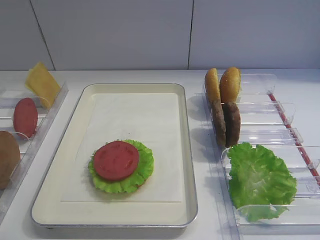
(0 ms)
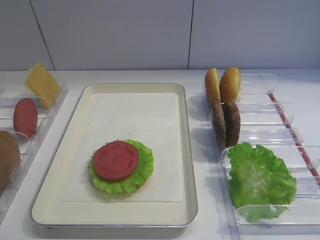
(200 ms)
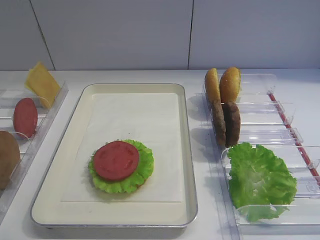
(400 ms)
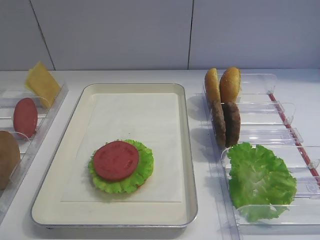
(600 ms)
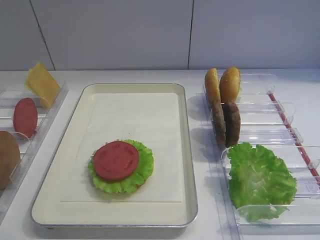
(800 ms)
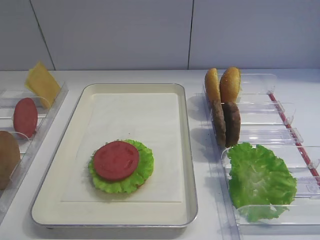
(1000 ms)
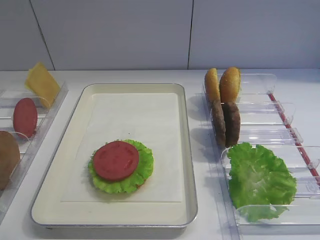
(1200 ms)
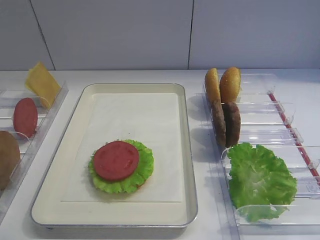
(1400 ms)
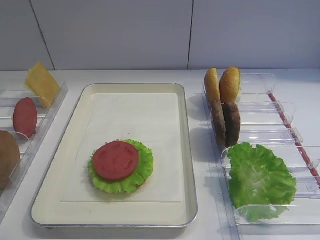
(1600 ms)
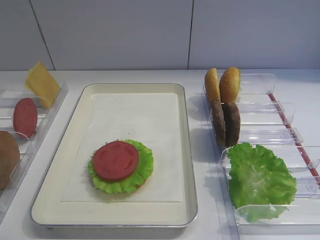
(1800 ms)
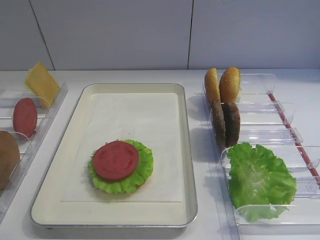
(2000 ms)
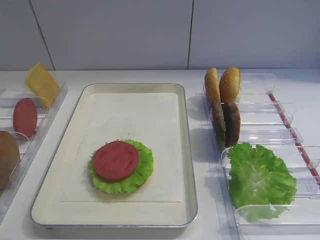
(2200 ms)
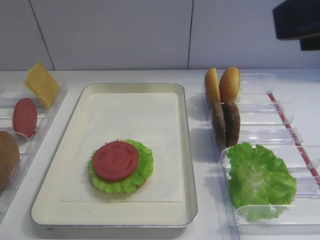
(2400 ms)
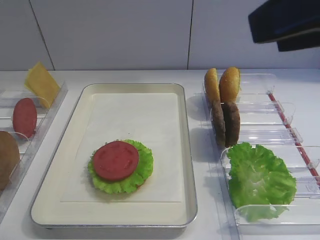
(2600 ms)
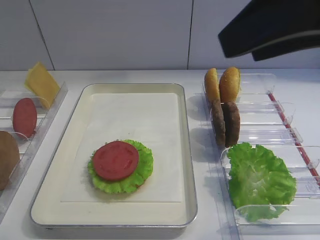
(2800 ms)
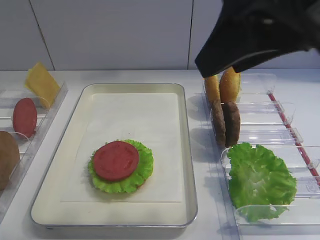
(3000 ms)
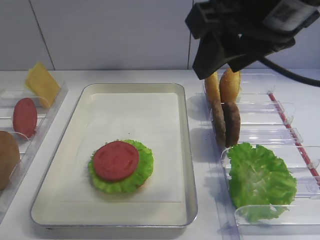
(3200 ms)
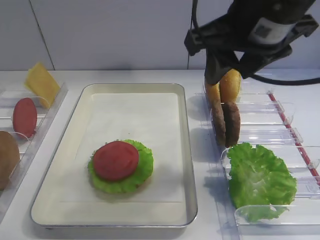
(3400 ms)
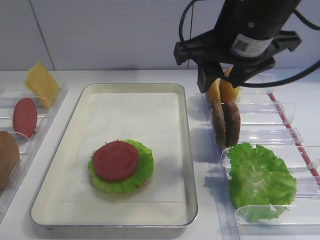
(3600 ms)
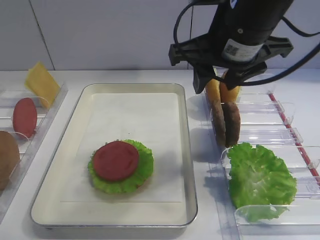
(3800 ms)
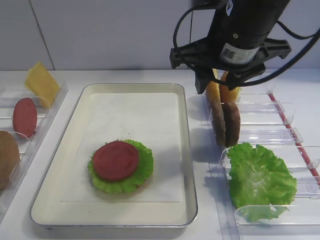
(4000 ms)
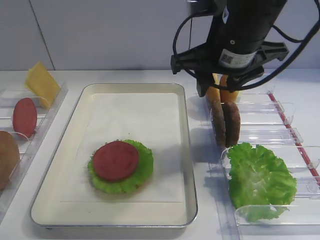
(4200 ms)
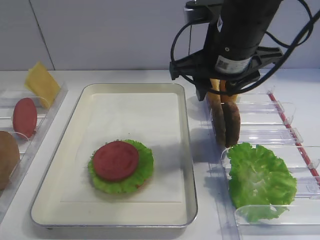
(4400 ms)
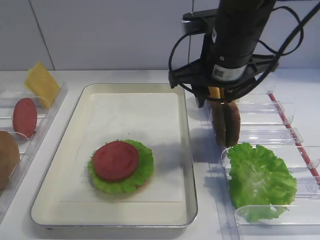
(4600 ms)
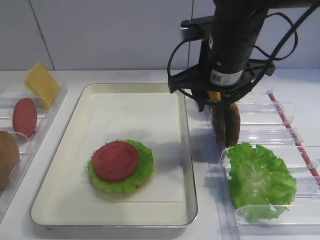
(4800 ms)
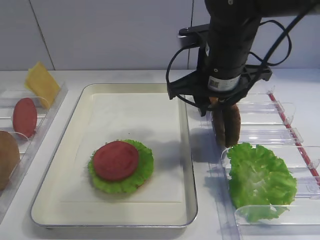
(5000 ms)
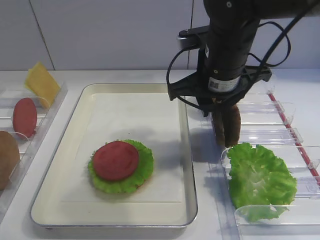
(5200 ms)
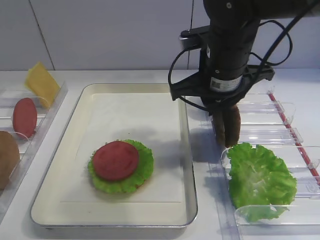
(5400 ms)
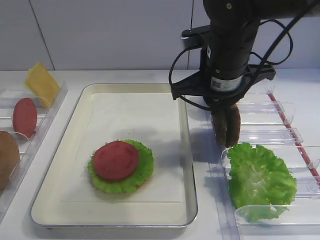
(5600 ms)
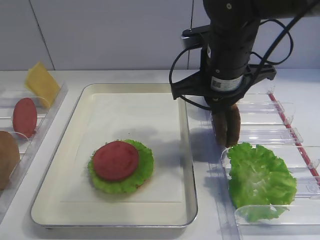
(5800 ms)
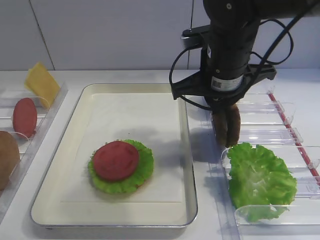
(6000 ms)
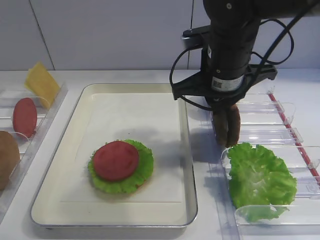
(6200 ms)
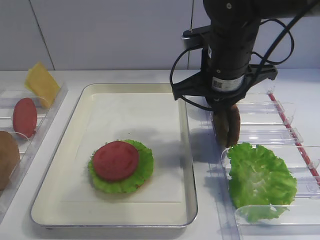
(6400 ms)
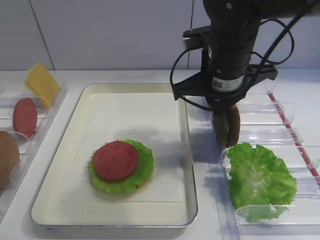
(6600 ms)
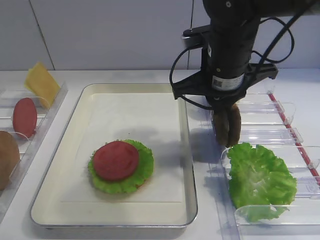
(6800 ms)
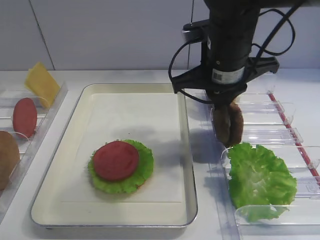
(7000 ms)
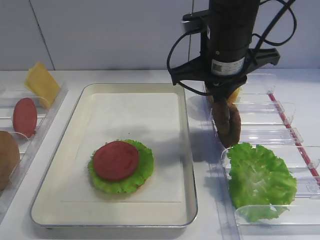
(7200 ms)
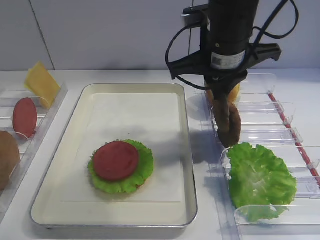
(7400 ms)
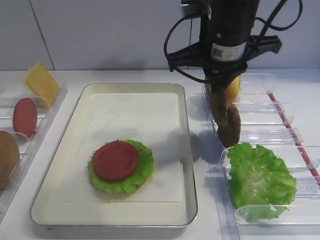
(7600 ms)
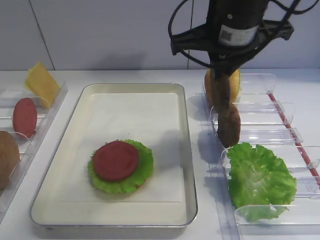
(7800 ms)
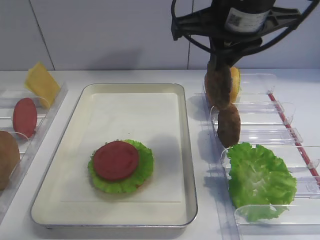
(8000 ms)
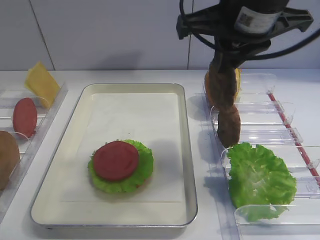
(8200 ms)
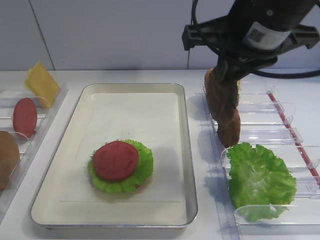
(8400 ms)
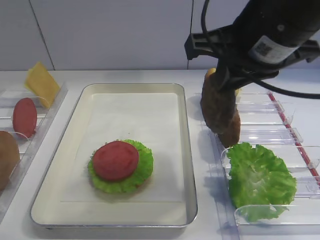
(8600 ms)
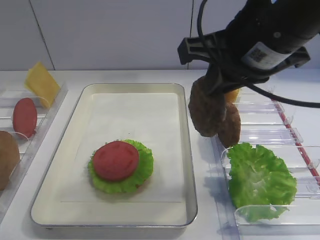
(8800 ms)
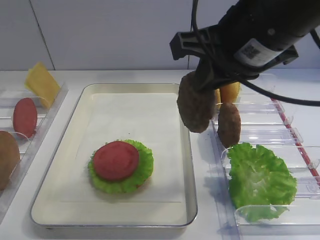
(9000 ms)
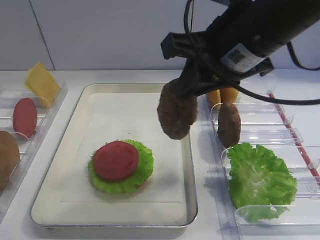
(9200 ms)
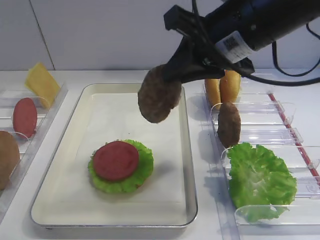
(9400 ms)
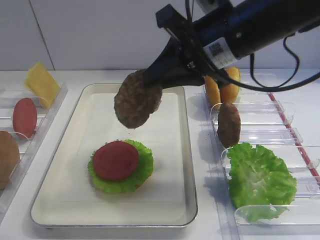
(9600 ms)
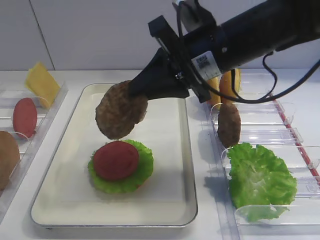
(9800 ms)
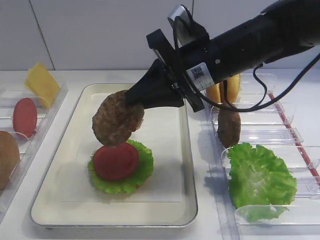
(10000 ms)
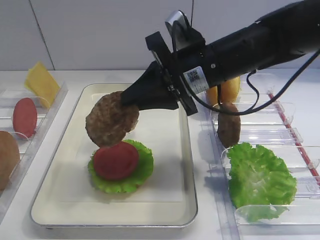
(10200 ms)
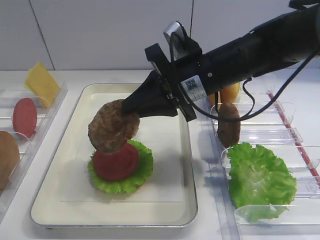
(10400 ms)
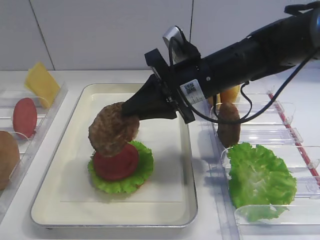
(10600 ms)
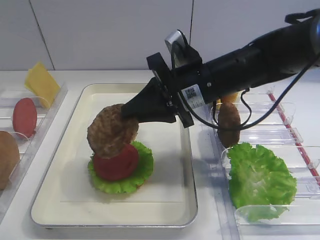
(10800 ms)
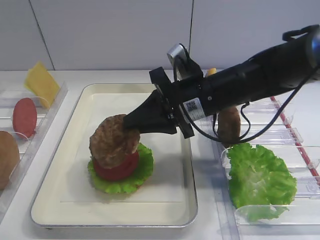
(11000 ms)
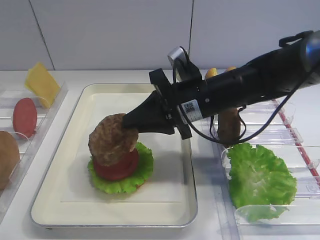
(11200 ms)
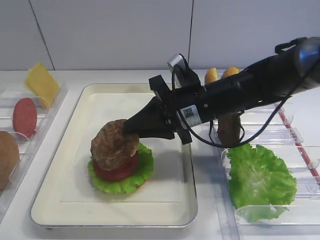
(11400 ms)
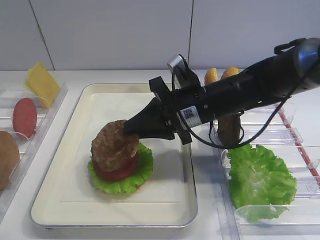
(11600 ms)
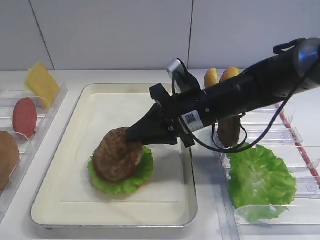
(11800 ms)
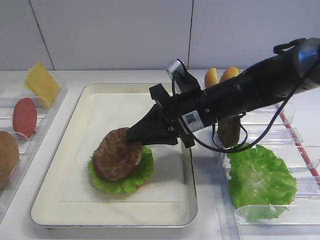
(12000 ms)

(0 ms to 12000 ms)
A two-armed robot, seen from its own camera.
Step, 0 ms - 7600 ms: Pick up the cutlet with the right gripper.
1600 ms - 3000 ms: The right gripper is displaced forward, to the left and upward by roughly 20 cm.
3000 ms - 4400 ms: The right gripper heads forward and downward, covering about 15 cm.
4400 ms - 6000 ms: The right gripper closes.
6000 ms - 7600 ms: The grippers make only small movements.
7600 ms - 9000 ms: The right gripper shifts roughly 10 cm backward.
9000 ms - 10400 ms: The right gripper goes roughly 15 cm downward and forward.
10400 ms - 12000 ms: The right gripper moves downward, roughly 5 cm.

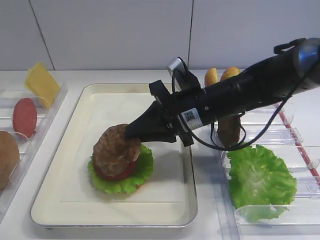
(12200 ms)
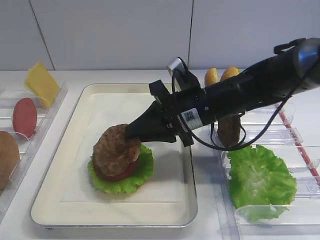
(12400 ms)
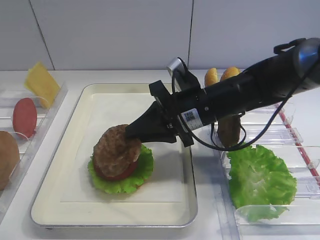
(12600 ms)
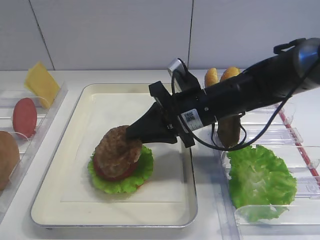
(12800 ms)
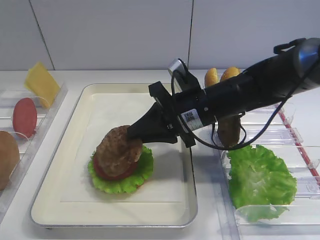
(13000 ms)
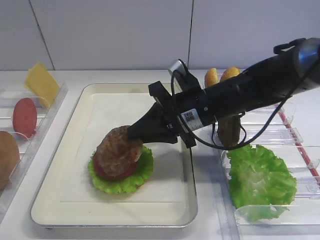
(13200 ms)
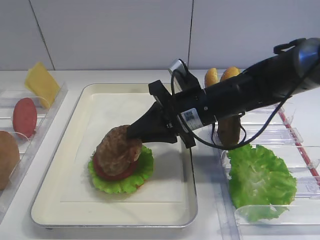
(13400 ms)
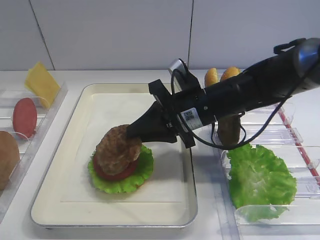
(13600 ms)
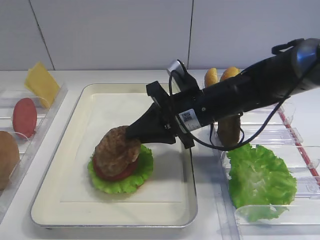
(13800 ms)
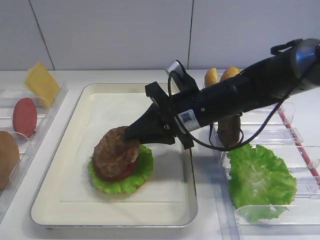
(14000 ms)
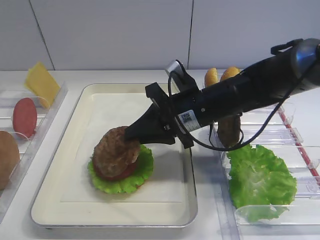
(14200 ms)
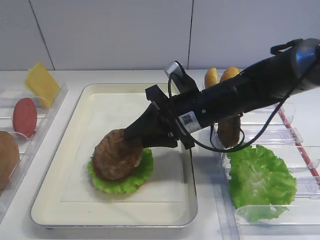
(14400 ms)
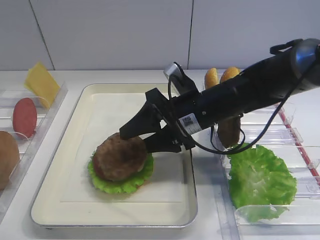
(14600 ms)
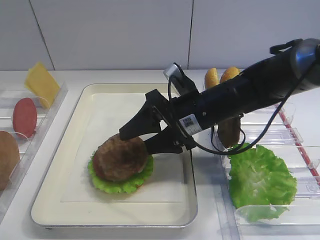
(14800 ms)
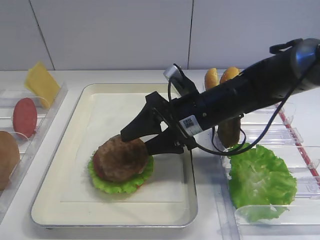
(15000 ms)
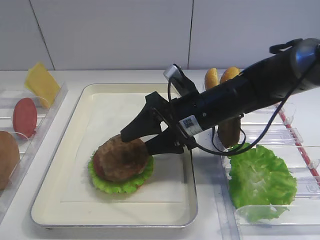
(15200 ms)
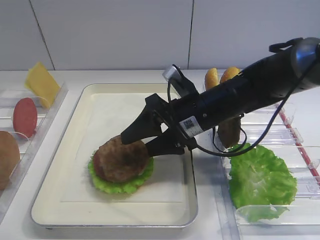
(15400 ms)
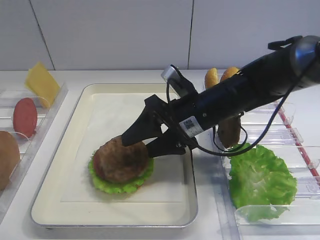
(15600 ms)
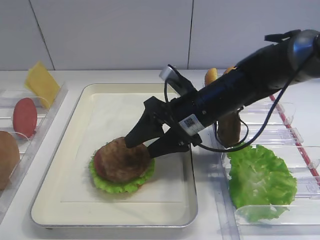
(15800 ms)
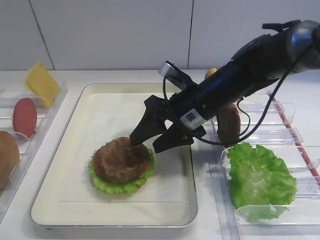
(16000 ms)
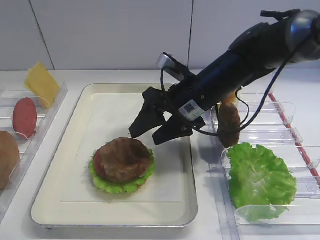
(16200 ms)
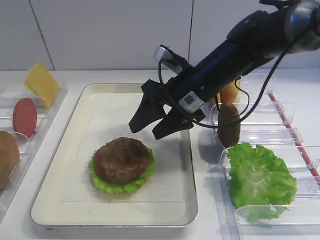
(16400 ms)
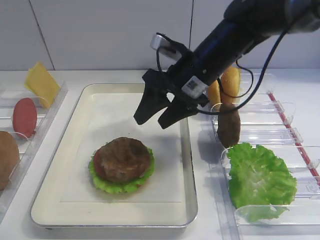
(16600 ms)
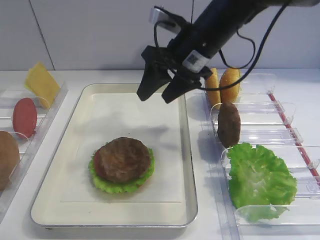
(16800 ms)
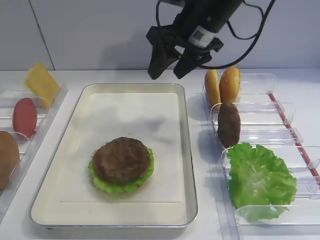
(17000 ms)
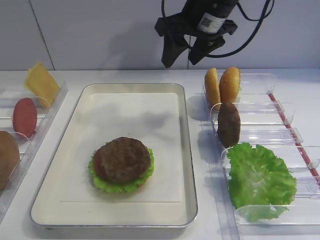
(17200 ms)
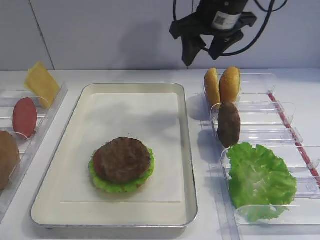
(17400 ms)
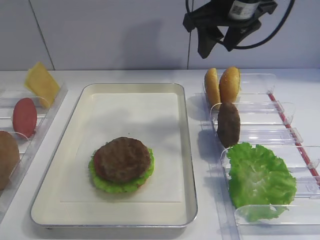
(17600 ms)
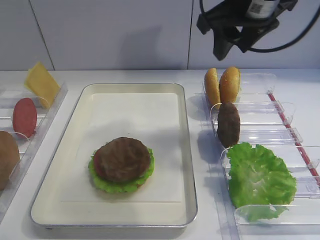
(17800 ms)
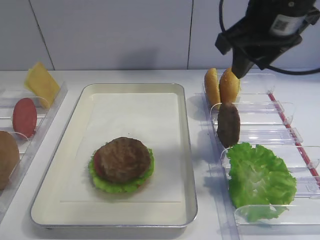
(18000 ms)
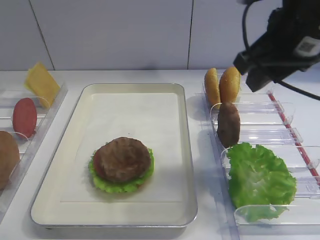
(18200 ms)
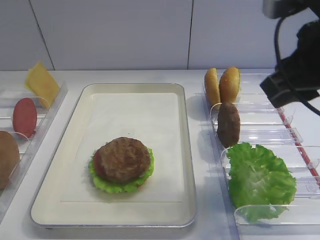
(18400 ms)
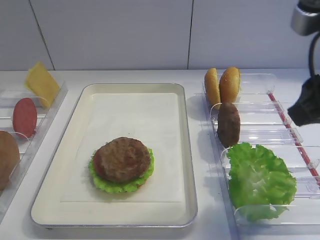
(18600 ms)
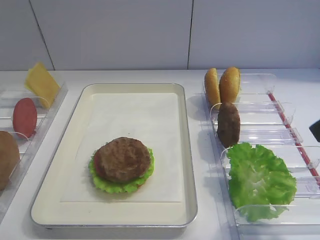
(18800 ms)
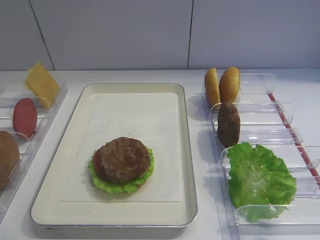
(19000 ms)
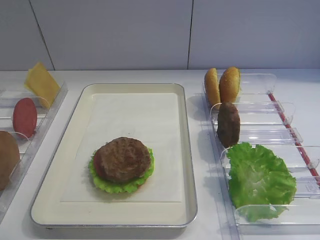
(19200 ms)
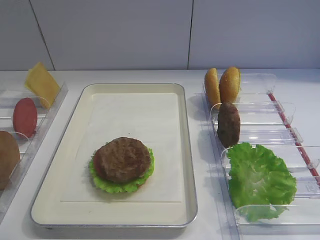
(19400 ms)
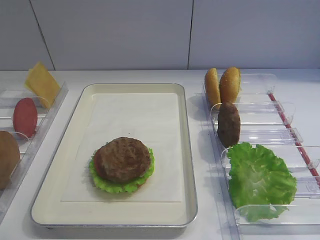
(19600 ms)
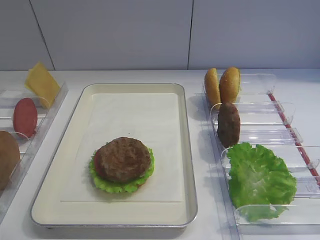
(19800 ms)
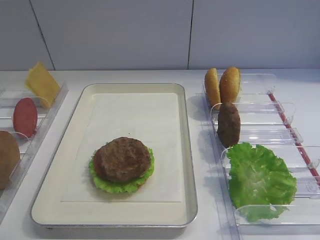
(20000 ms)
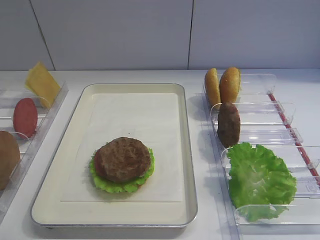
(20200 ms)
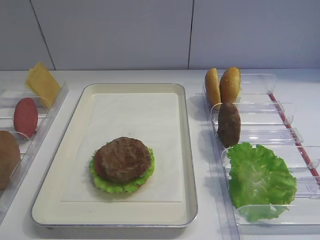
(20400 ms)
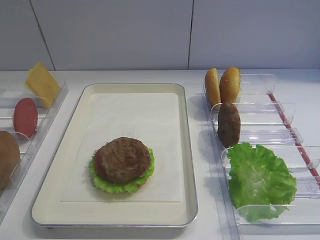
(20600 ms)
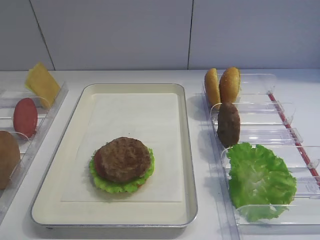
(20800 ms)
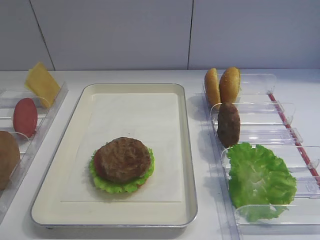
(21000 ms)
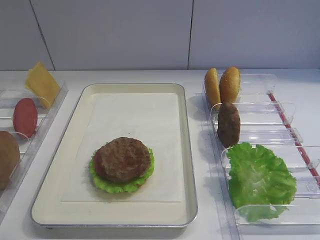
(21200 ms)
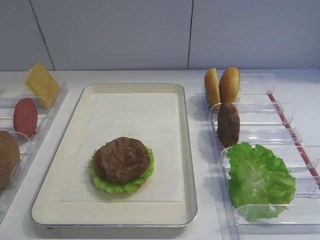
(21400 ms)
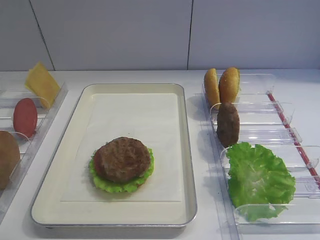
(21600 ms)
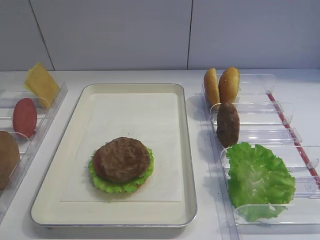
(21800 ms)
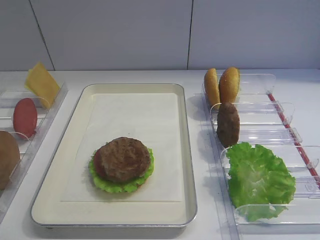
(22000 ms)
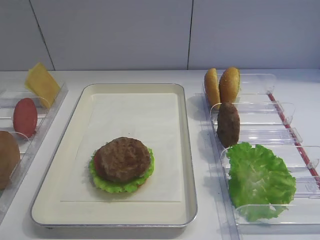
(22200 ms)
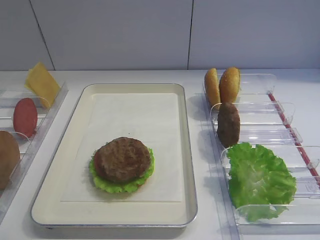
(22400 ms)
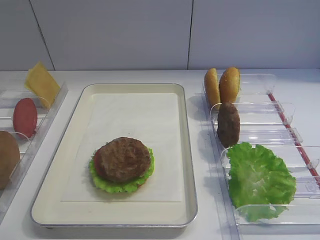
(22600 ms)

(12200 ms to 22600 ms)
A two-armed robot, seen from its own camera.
Step, 12200 ms - 15800 ms: Place the cutlet on the tomato slice with the right gripper.
12200 ms - 13600 ms: Both grippers stay put.
13600 ms - 15200 ms: The right gripper opens.
15200 ms - 16600 ms: The right gripper shifts some 5 cm upward.
16600 ms - 18200 ms: The right gripper heads upward, to the right and backward, covering roughly 15 cm, and closes up.
18200 ms - 19600 ms: The right gripper shifts about 25 cm backward and to the right.
